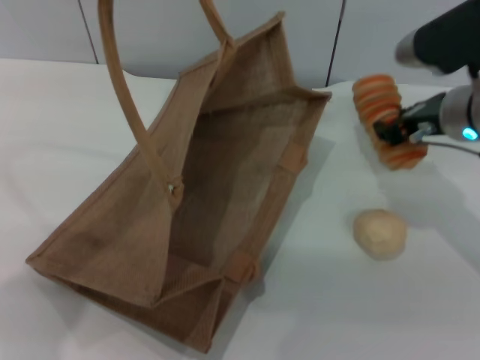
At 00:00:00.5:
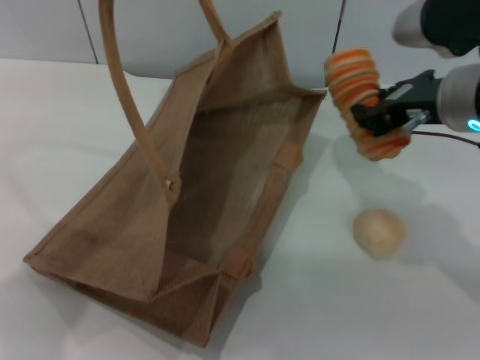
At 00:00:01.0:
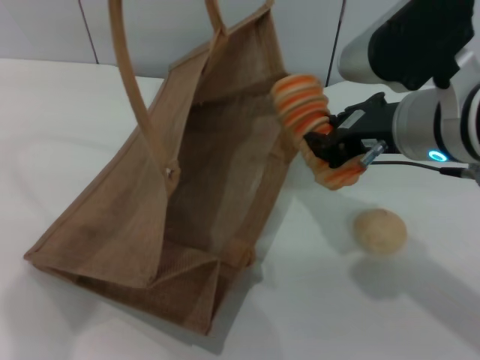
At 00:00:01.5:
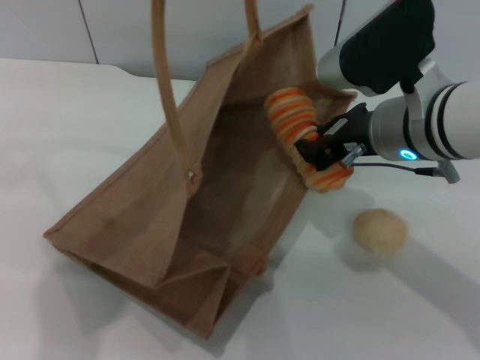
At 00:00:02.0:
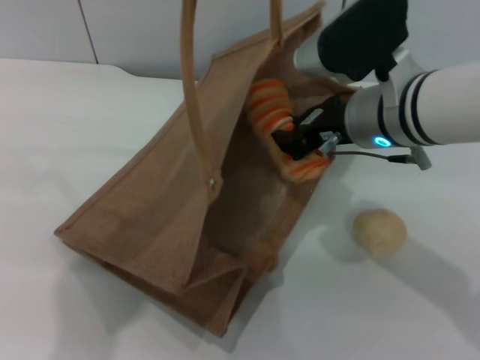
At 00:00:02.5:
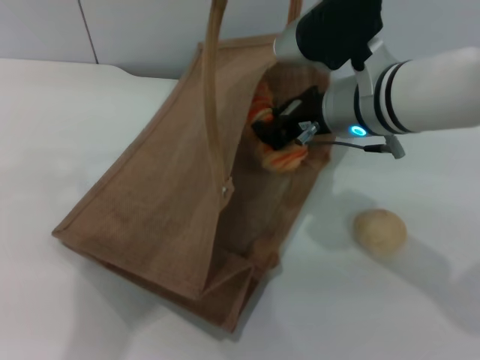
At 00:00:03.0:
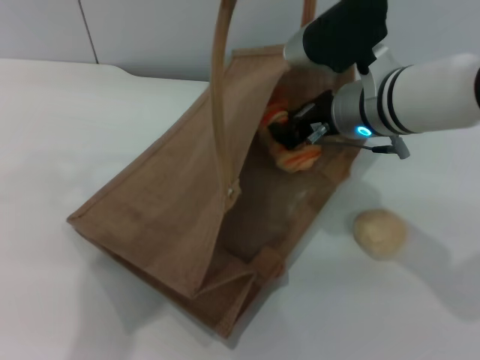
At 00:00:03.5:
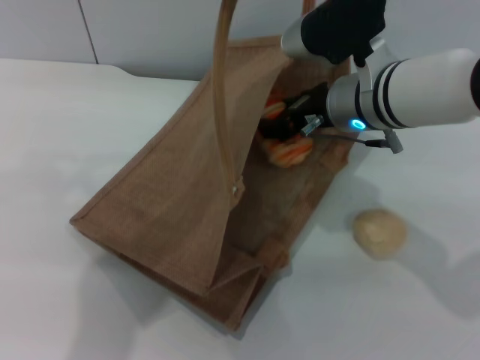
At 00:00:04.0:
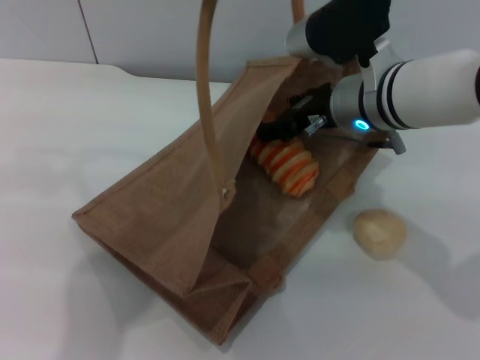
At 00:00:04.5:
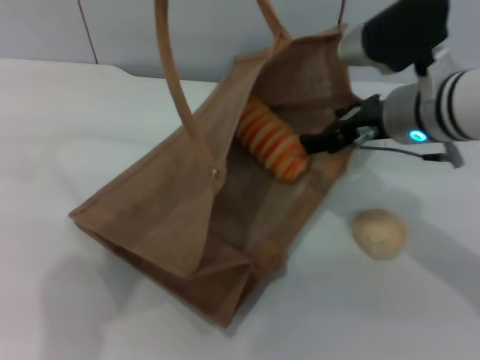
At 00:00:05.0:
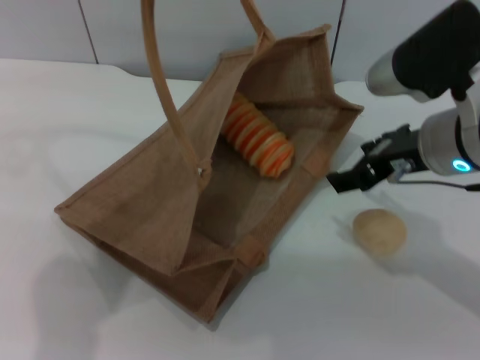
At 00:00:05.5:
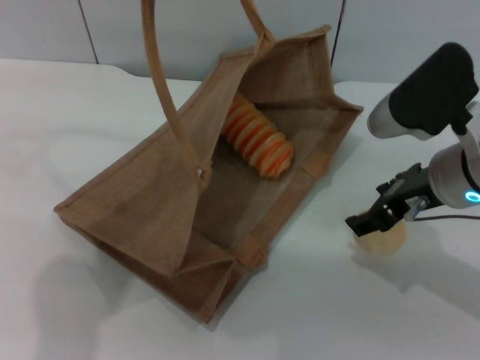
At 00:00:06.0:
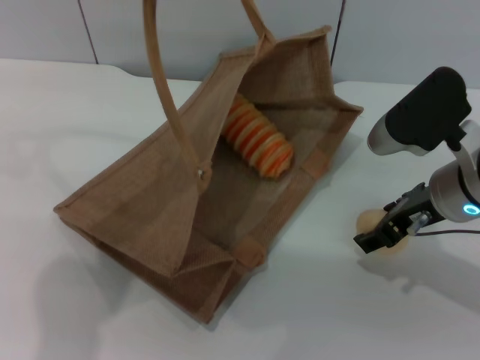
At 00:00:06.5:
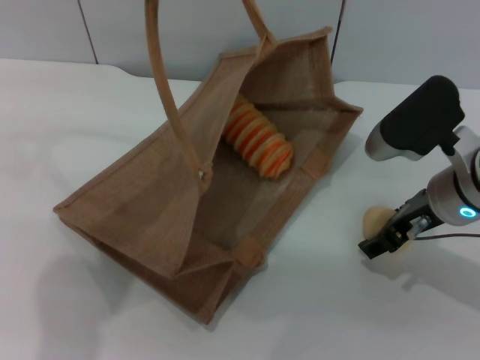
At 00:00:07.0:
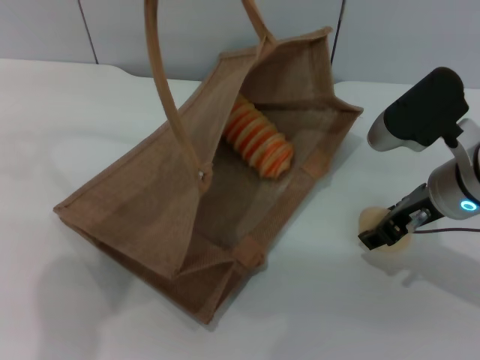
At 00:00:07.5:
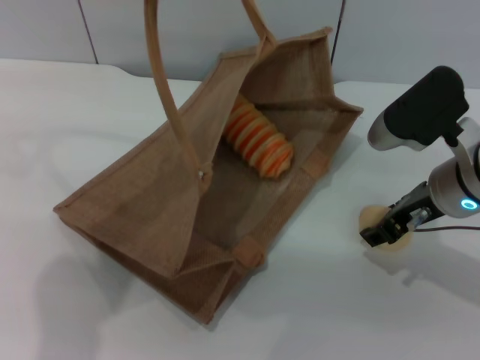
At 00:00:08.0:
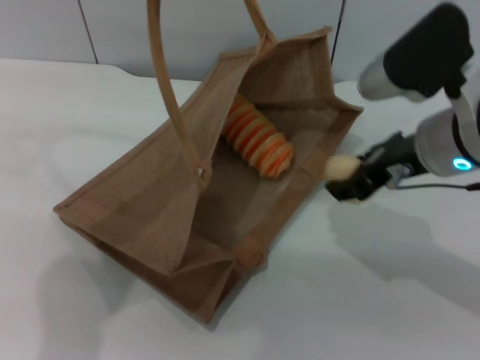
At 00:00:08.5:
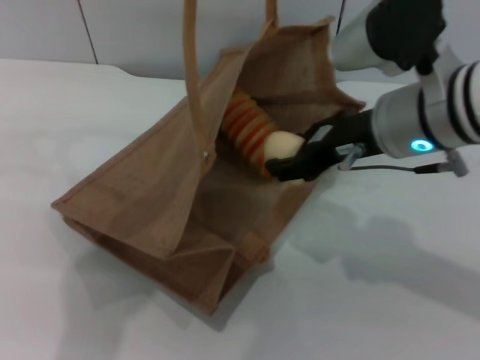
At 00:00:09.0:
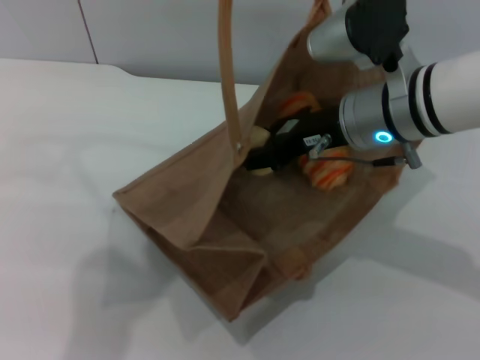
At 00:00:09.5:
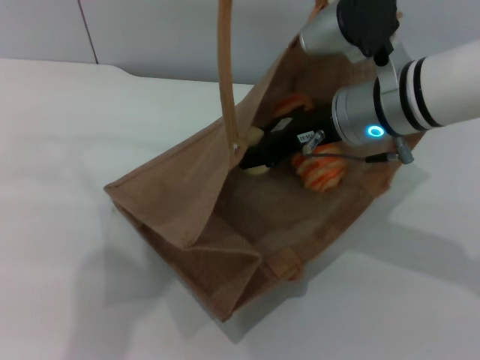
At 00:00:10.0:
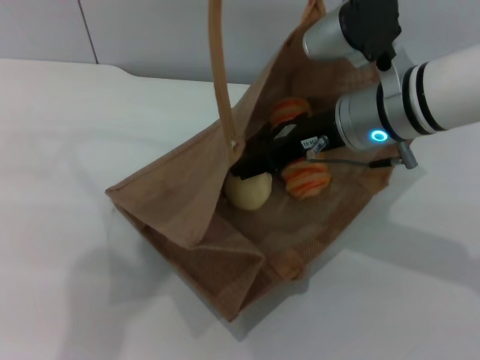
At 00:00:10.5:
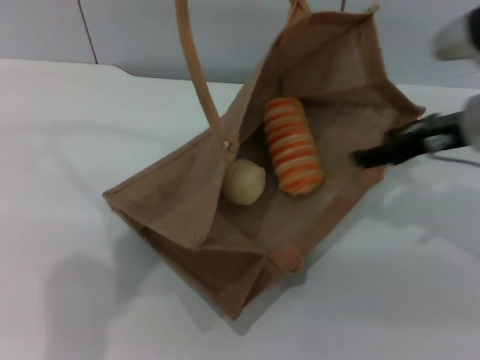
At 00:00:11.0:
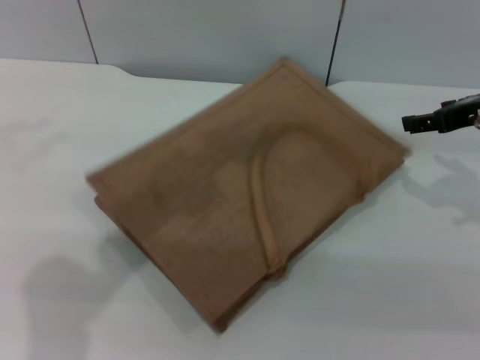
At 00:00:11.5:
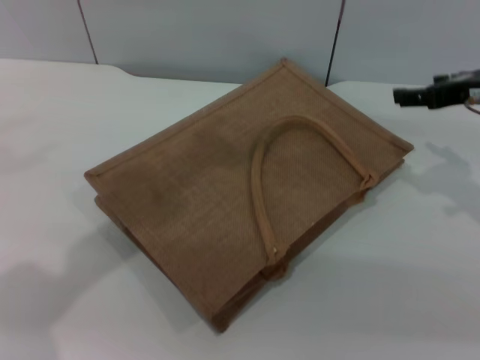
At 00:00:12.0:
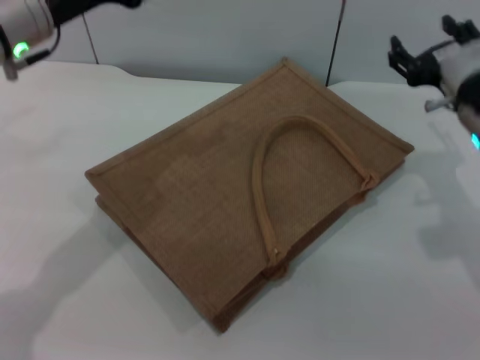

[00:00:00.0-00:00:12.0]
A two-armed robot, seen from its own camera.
Task of the whole recording: pick up the bread and egg yolk pastry from the table and place it in the brown handbag.
Step, 00:00:00.5 to 00:00:04.5: Place the bread into the woven bag with the right gripper.
Step, 00:00:05.0 to 00:00:08.0: Pick up the egg yolk pastry with the right gripper.
Step, 00:00:08.5 to 00:00:10.5: Place the egg yolk pastry into the woven bag with the right gripper.
00:00:00.0 to 00:00:02.0: The right gripper shifts about 10 cm to the left. The left gripper shifts some 5 cm to the right.
00:00:02.0 to 00:00:04.0: The right gripper opens.
00:00:04.0 to 00:00:06.0: The right gripper travels to the right and backward by approximately 10 cm.
00:00:06.0 to 00:00:08.0: The right gripper moves some 5 cm, and closes up.
00:00:08.0 to 00:00:10.0: The right gripper goes roughly 5 cm to the left, and opens.
00:00:10.0 to 00:00:12.0: The right gripper is displaced to the right by about 10 cm; the left gripper is displaced downward and to the left by about 15 cm, and opens up.
